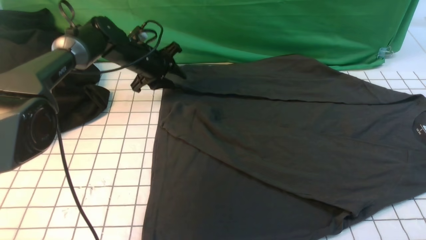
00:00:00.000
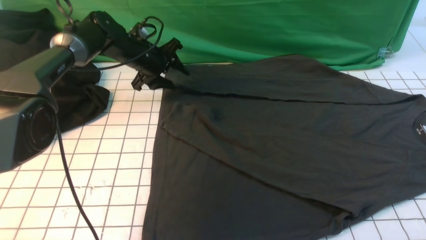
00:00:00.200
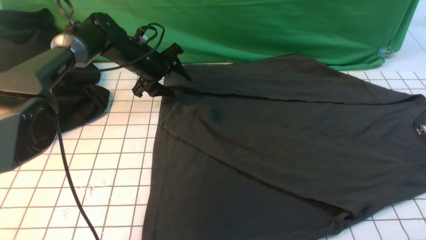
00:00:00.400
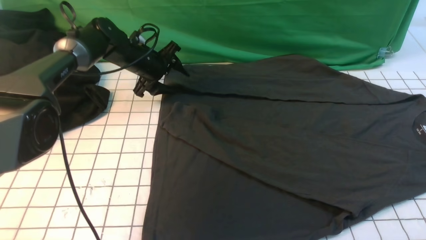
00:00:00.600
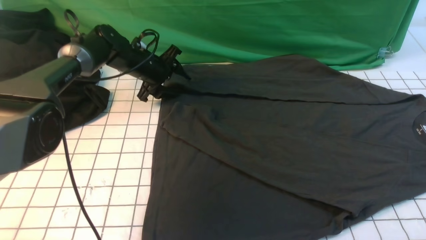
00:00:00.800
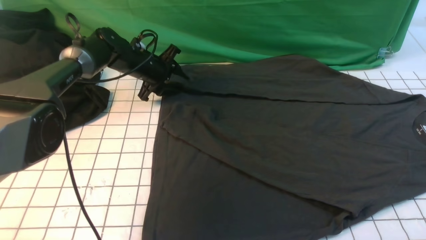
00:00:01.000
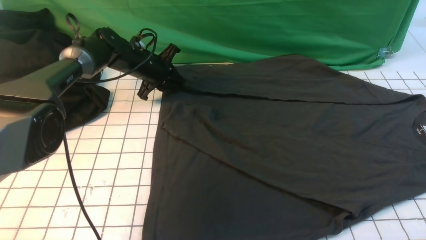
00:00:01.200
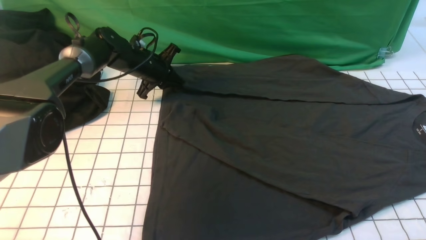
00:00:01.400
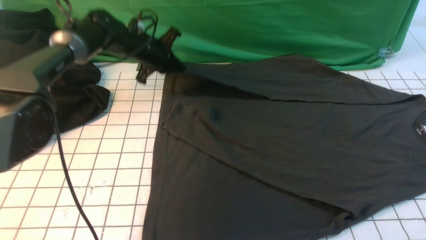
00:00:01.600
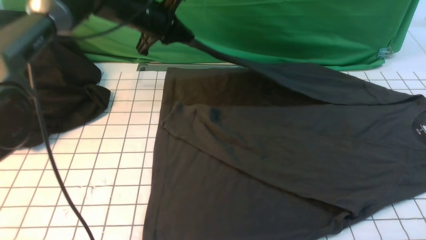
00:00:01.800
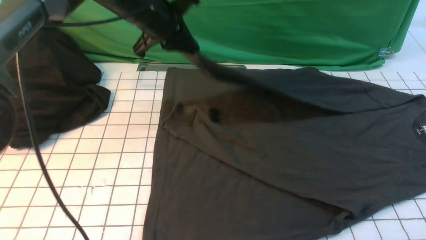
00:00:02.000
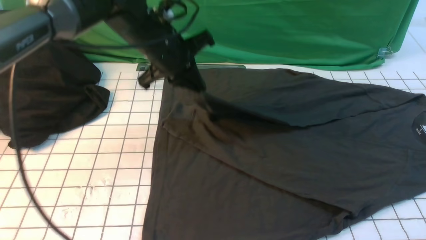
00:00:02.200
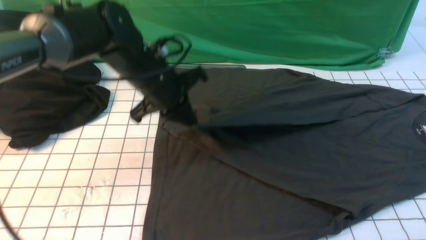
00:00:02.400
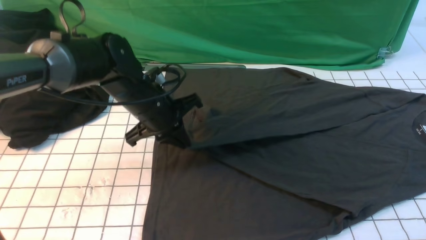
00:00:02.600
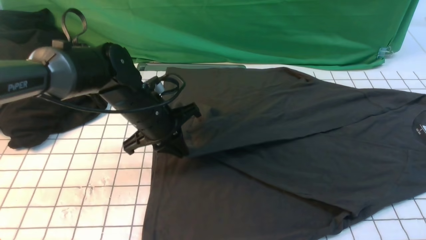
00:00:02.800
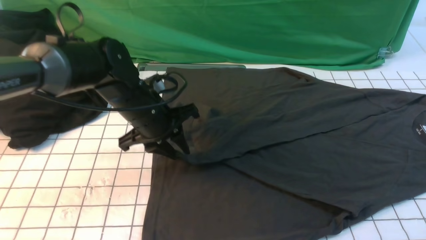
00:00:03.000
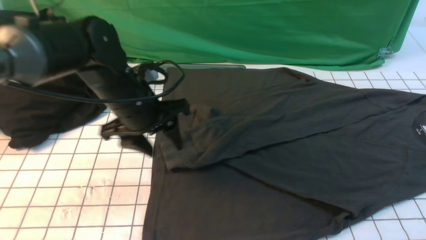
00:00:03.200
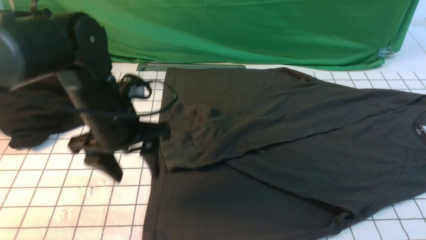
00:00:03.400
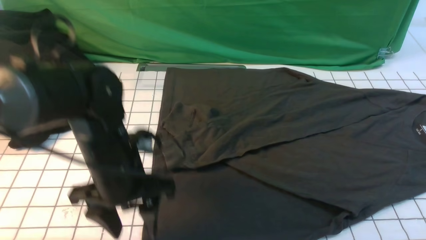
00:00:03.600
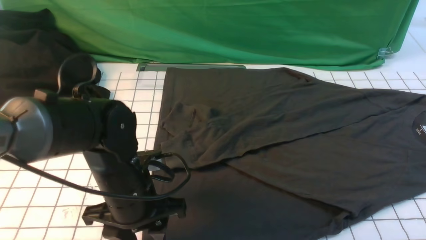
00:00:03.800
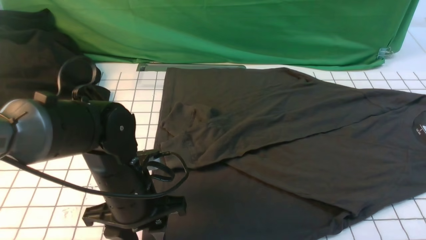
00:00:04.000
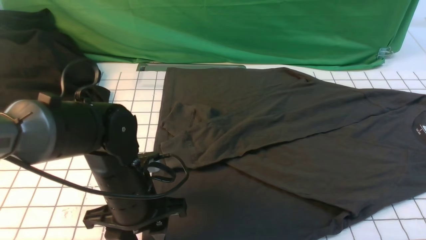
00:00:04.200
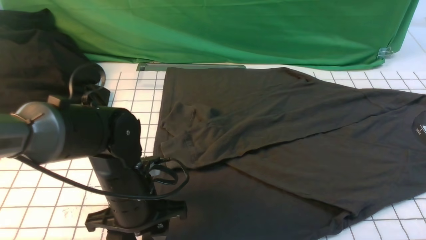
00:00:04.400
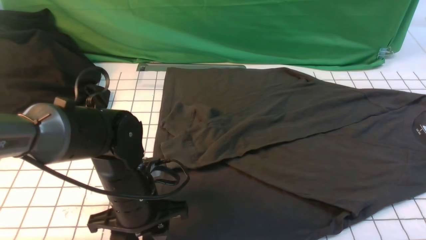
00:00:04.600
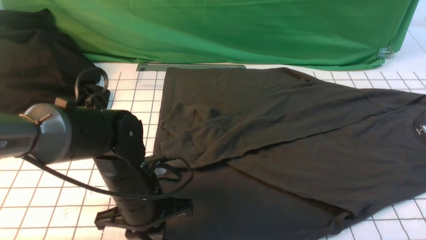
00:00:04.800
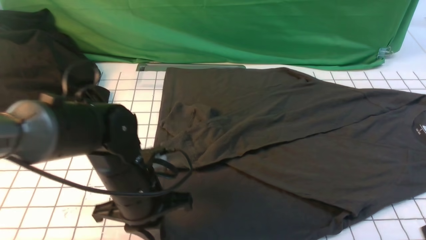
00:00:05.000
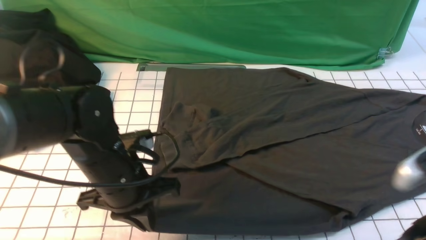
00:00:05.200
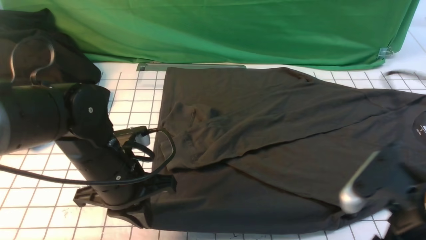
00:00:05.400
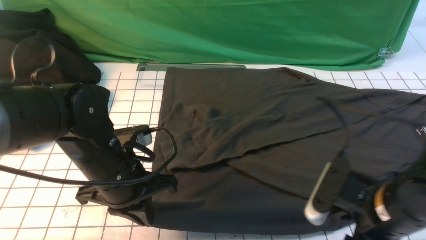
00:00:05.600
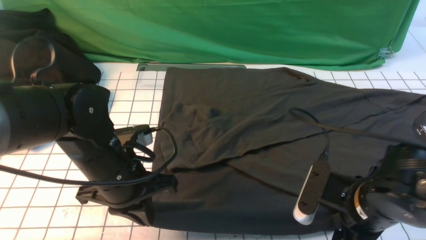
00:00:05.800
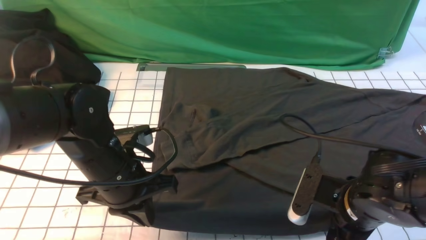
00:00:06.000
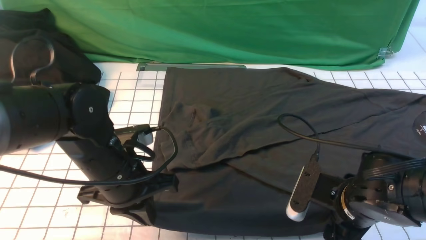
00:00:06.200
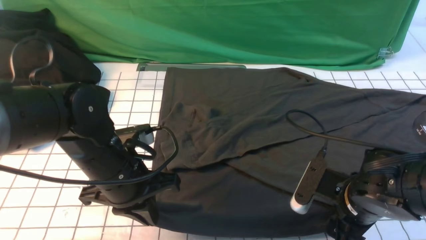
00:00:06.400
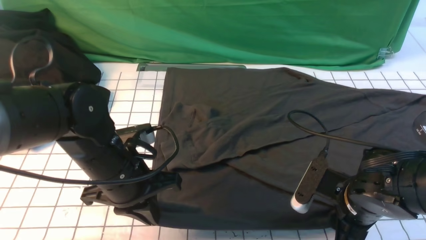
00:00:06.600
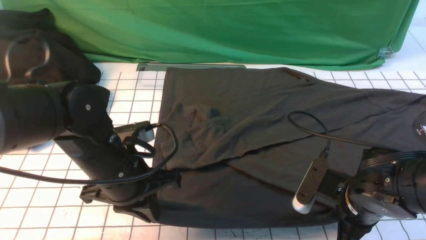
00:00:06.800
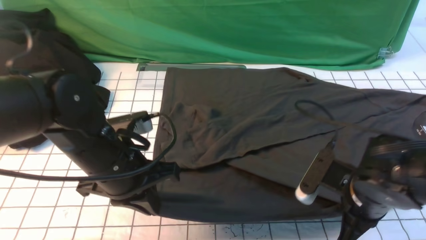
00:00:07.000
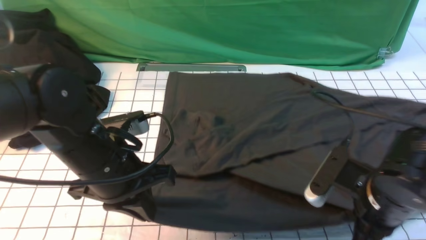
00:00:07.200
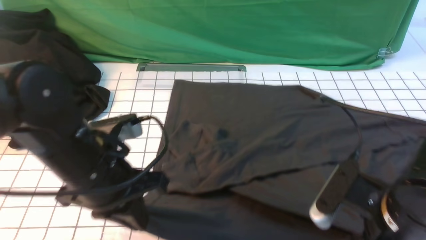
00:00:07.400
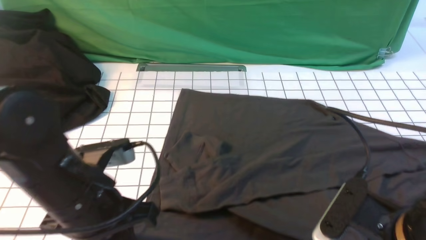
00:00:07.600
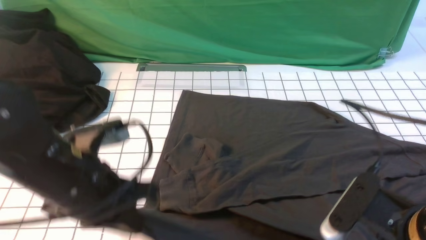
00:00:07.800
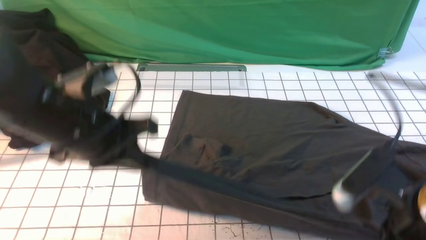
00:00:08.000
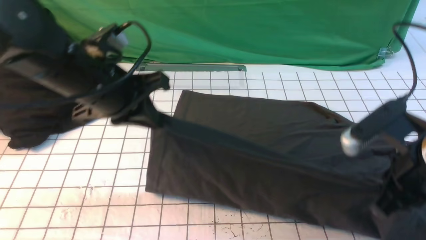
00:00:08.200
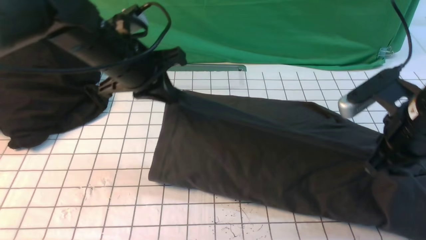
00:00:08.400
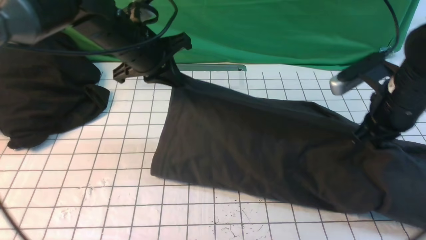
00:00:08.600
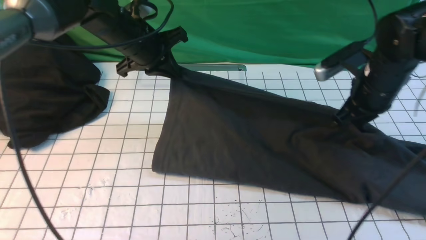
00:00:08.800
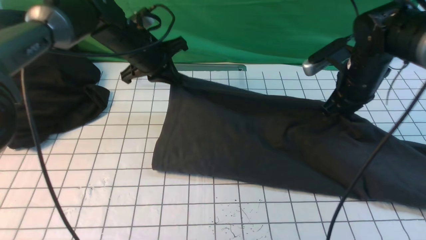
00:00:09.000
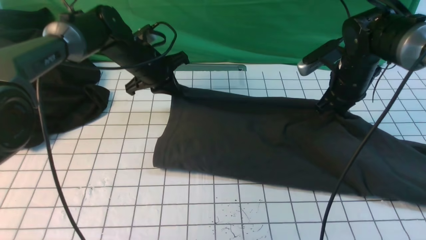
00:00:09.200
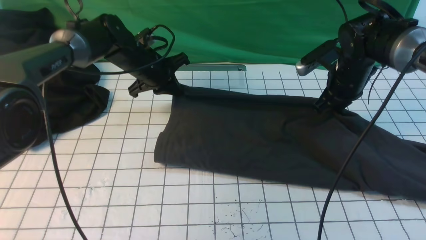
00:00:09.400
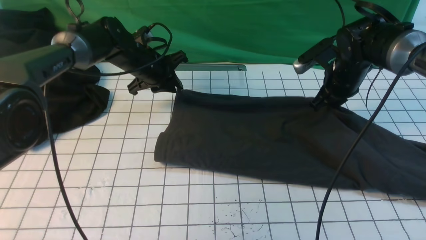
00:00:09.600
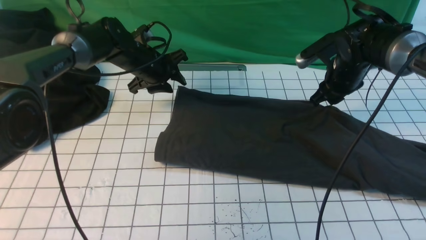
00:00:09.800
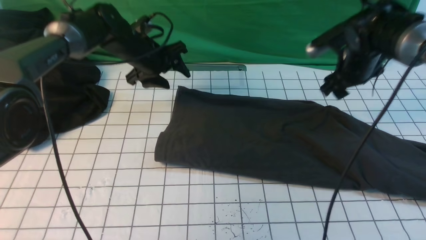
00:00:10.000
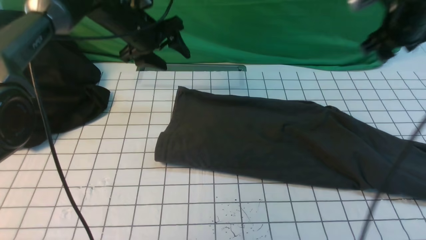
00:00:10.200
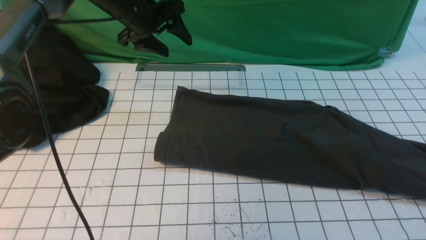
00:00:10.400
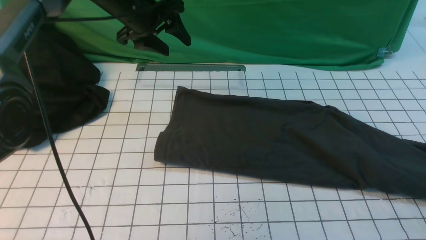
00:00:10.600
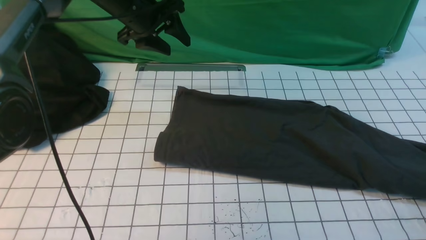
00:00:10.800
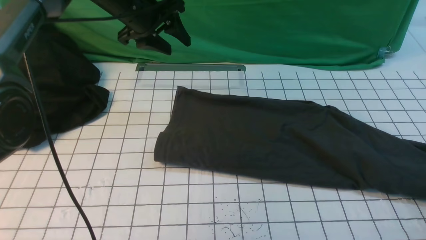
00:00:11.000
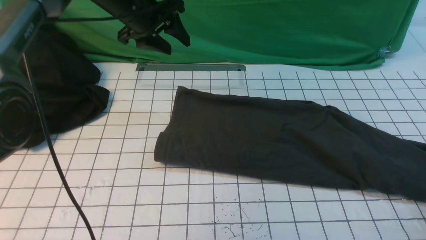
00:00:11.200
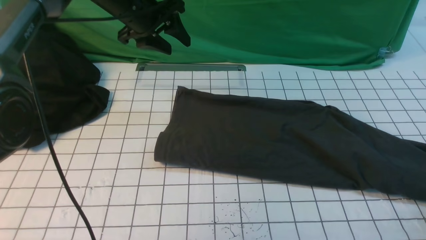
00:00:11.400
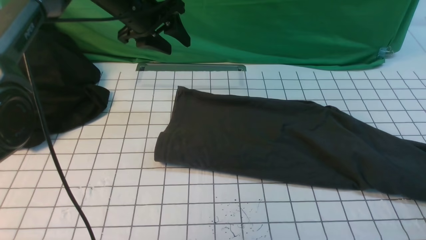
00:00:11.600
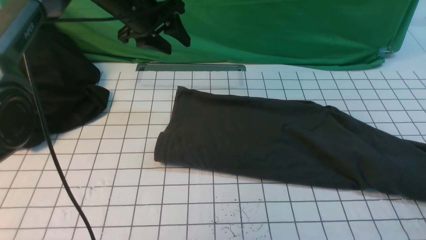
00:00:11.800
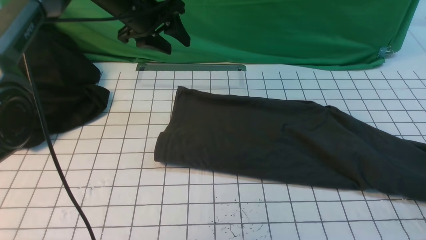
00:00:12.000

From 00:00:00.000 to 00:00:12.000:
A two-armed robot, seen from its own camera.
Step, from 00:00:01.600 to 00:00:03.000: use the left arm to drag and drop the cuff onto the cuff closest to the left arm.
Step, from 00:00:03.200 to 00:00:07.400: use both arms simultaneously to clamp the lower edge of the clothing fabric.
Step, from 00:00:07.600 to 00:00:10.000: use both arms to drag the lower edge of the fabric forward and fold it over the upper edge.
From 00:00:00.000 to 00:00:01.600: The left gripper goes roughly 5 cm upward, and closes.
From 00:00:01.600 to 00:00:03.000: The left gripper shifts about 20 cm backward, and opens its fingers.
From 00:00:03.000 to 00:00:04.400: The left gripper travels backward and downward by approximately 10 cm.
From 00:00:04.400 to 00:00:06.000: The left gripper closes; the right gripper travels downward, to the left and forward by roughly 20 cm, and opens.
From 00:00:06.000 to 00:00:07.600: Both grippers travel together upward and backward, some 10 cm. The right gripper closes.
From 00:00:07.600 to 00:00:09.000: Both grippers travel together forward, approximately 30 cm.
From 00:00:09.000 to 00:00:10.400: The right gripper is displaced to the right and upward by some 20 cm, and opens up, while the left gripper shifts approximately 5 cm upward, and opens.

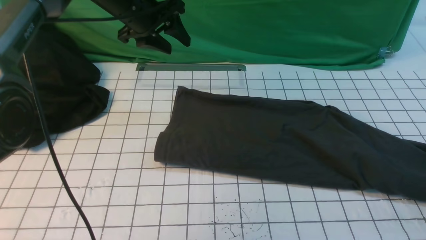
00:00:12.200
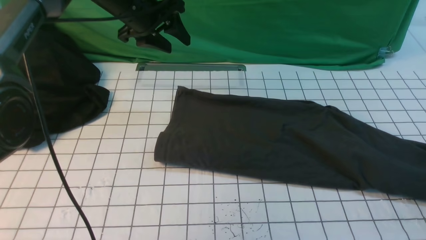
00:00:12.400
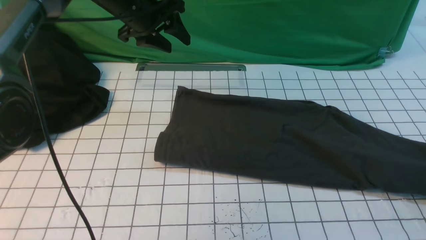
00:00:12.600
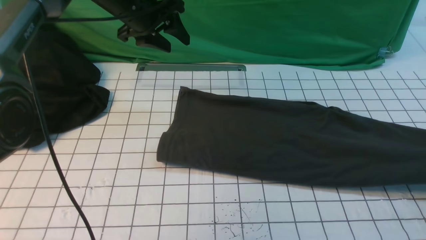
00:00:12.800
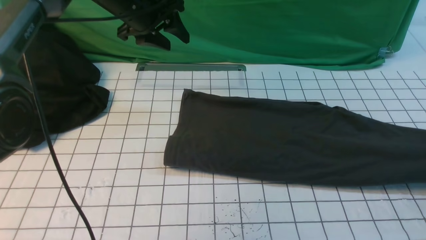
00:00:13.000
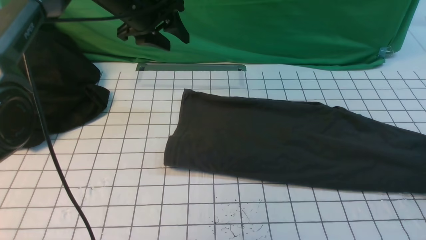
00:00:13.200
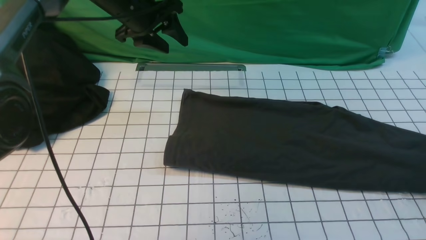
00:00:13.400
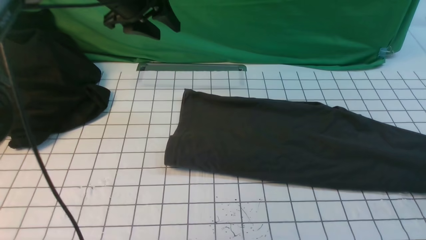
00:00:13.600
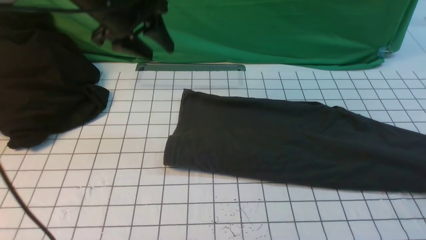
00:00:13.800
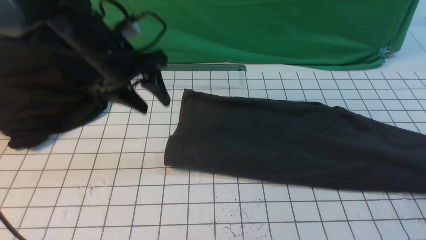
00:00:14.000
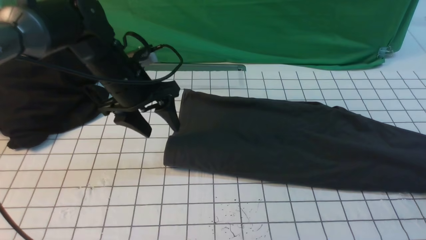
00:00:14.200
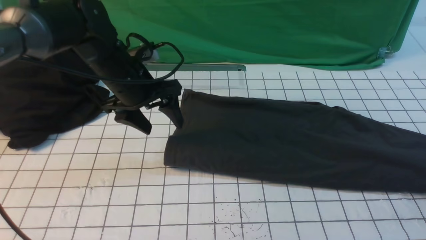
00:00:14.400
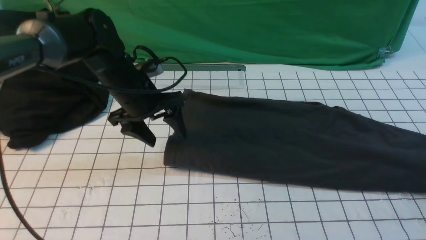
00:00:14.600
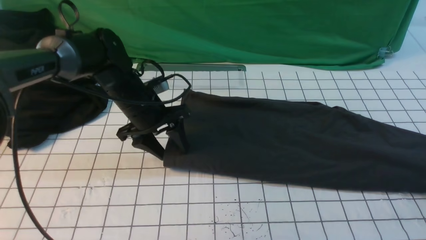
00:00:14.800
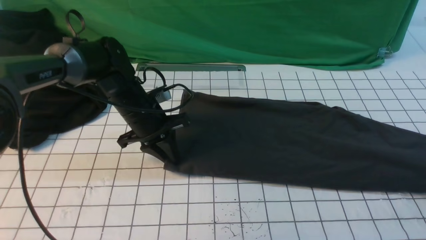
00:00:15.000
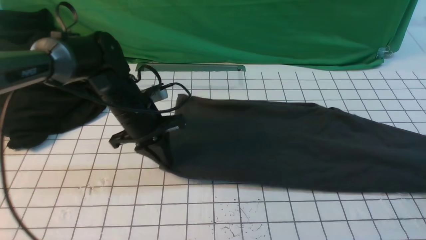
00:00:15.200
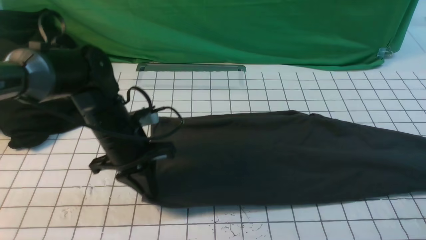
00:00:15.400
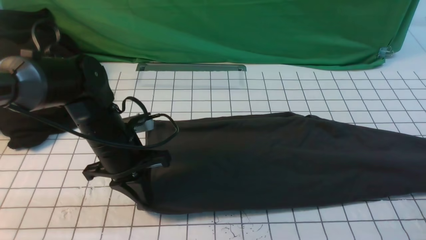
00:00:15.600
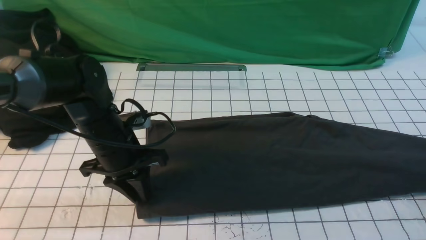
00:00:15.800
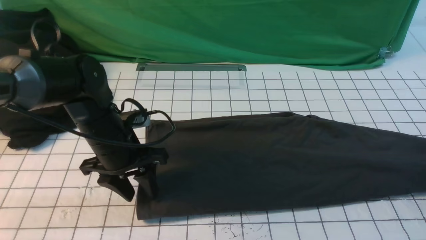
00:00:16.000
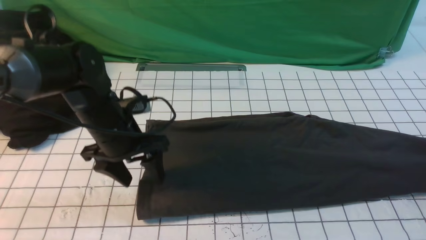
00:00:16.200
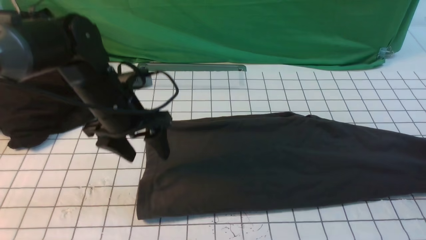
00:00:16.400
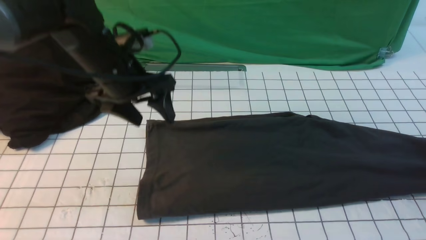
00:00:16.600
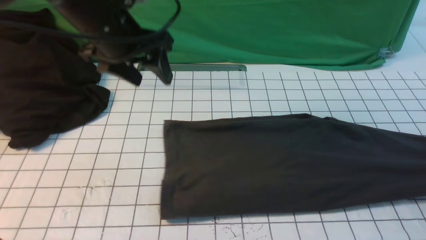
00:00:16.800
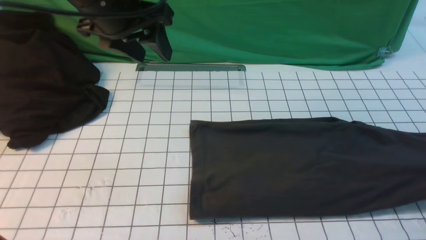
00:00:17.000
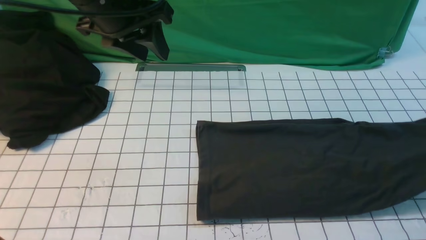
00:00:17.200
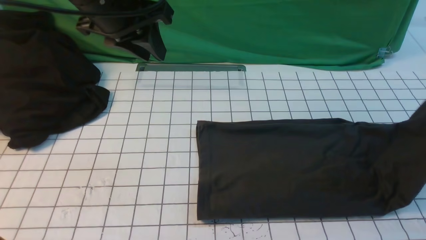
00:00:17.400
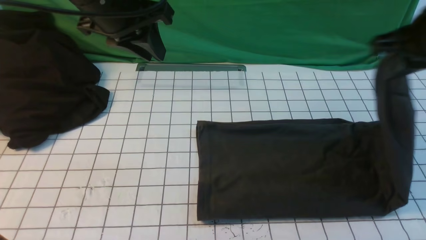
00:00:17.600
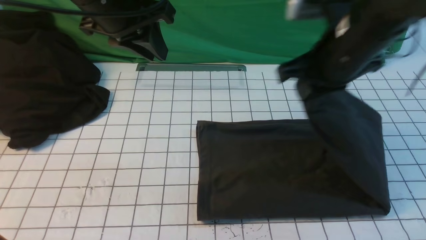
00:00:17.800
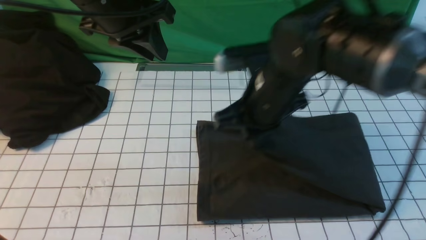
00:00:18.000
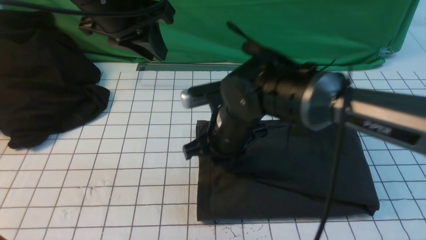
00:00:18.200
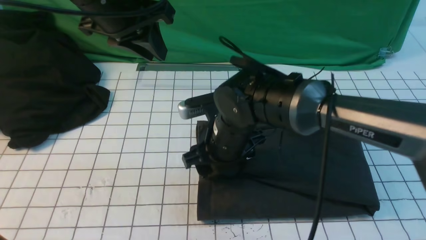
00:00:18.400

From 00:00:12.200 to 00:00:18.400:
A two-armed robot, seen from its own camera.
Step, from 00:00:12.200 to 00:00:16.800: use the right arm to clamp the right edge of the fabric.
From 00:00:12.200 to 00:00:13.800: The left gripper heads backward, covering approximately 5 cm, while the right gripper shifts roughly 10 cm upward, and opens up.
From 00:00:13.800 to 00:00:15.400: The right gripper shifts by roughly 5 cm. Meanwhile the left gripper is displaced downward and backward by approximately 15 cm, and closes its fingers.
From 00:00:15.400 to 00:00:16.800: The right gripper closes. Meanwhile the left gripper heads upward, covering some 15 cm, and opens up.
From 00:00:16.800 to 00:00:18.400: The right gripper goes about 50 cm to the left, and opens. Meanwhile the left gripper closes up.
